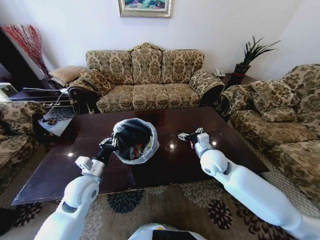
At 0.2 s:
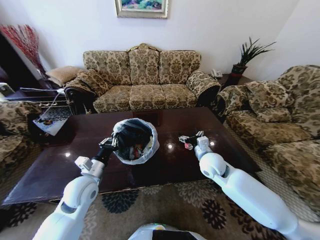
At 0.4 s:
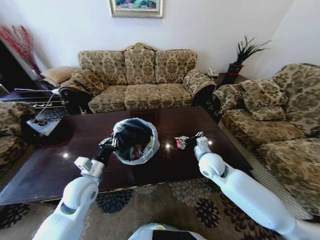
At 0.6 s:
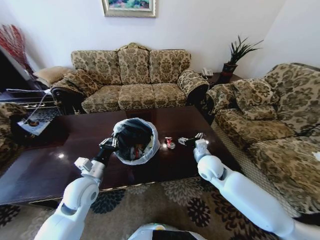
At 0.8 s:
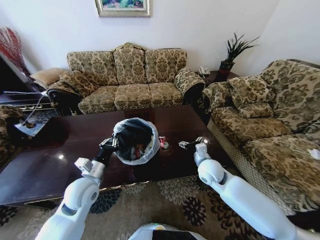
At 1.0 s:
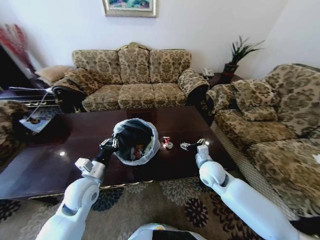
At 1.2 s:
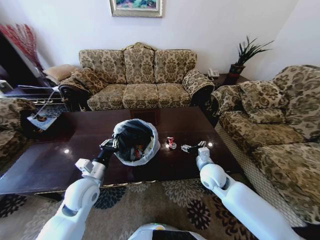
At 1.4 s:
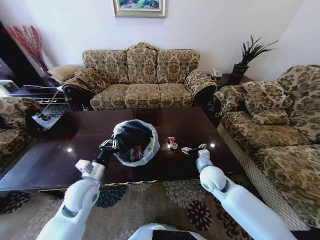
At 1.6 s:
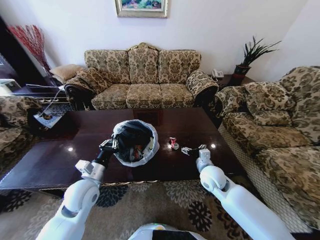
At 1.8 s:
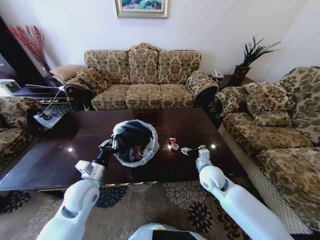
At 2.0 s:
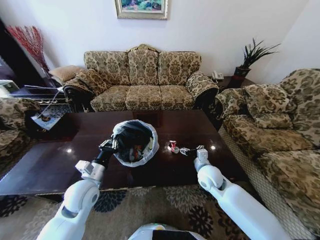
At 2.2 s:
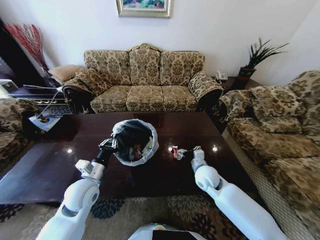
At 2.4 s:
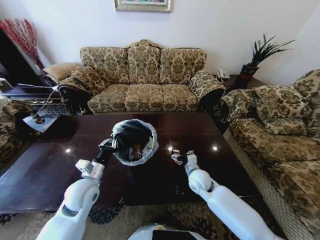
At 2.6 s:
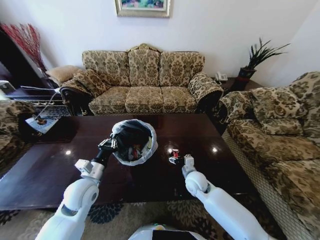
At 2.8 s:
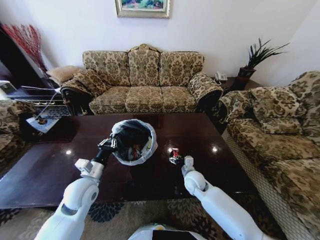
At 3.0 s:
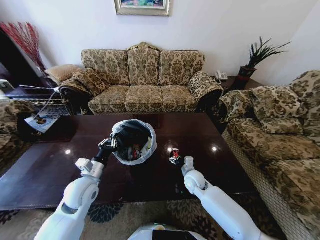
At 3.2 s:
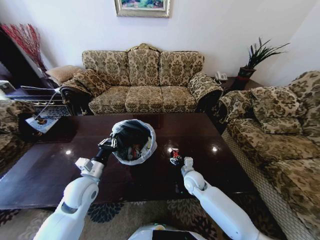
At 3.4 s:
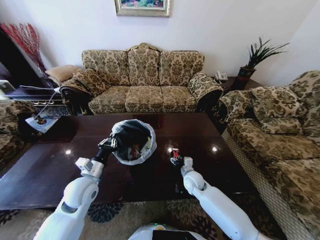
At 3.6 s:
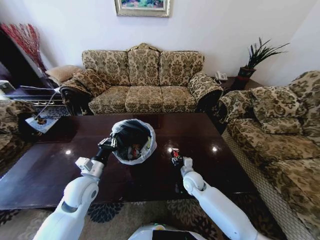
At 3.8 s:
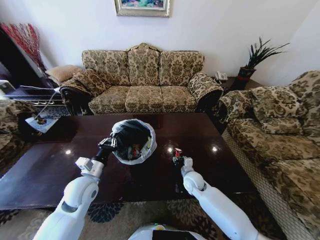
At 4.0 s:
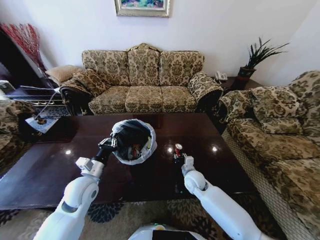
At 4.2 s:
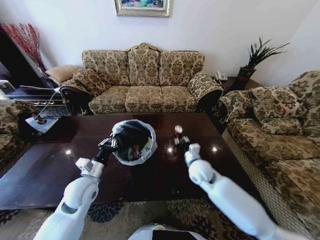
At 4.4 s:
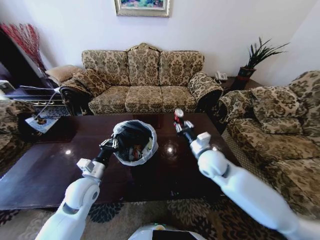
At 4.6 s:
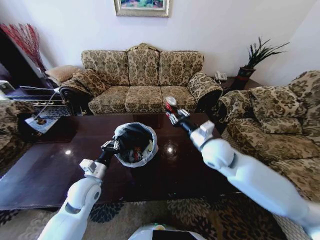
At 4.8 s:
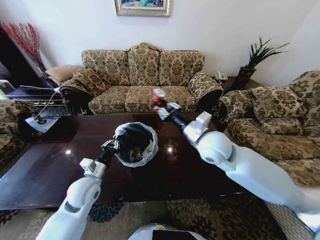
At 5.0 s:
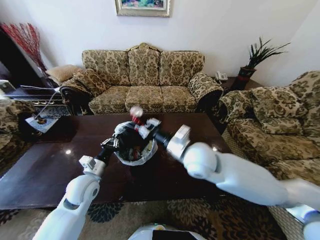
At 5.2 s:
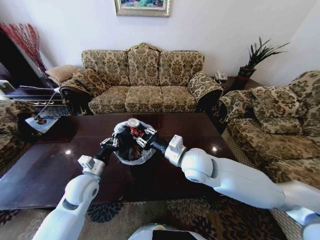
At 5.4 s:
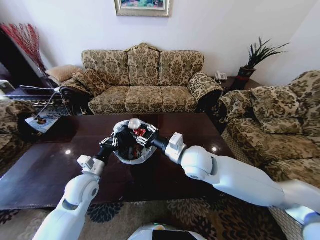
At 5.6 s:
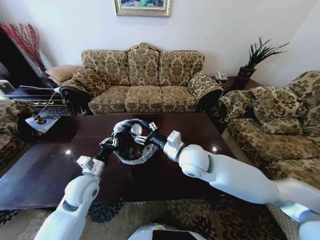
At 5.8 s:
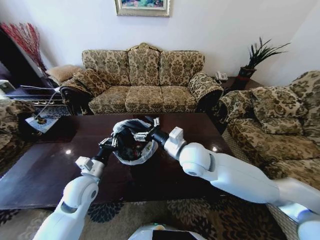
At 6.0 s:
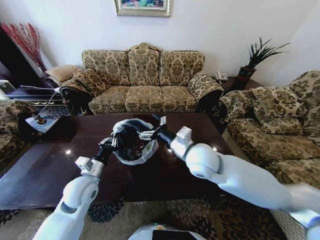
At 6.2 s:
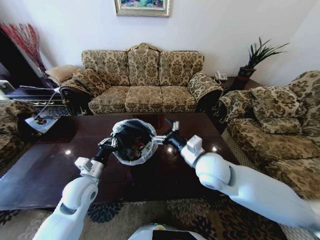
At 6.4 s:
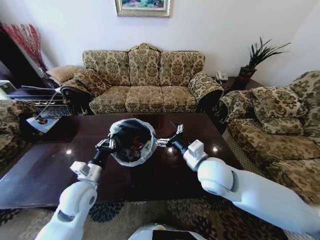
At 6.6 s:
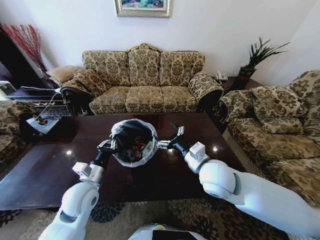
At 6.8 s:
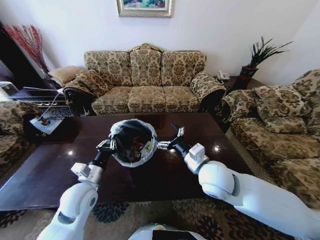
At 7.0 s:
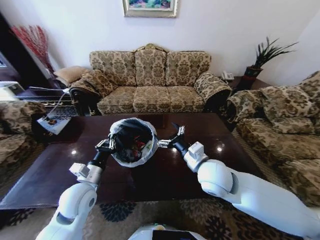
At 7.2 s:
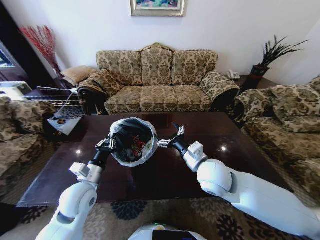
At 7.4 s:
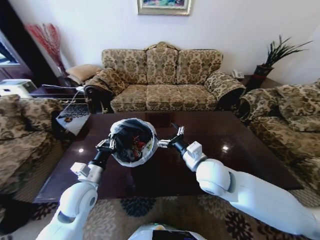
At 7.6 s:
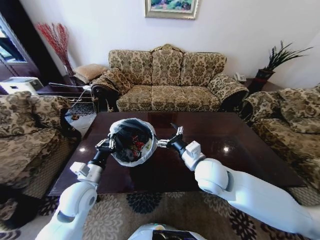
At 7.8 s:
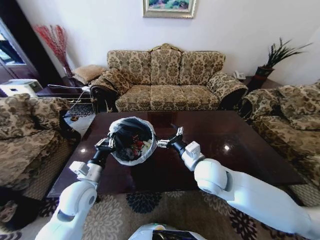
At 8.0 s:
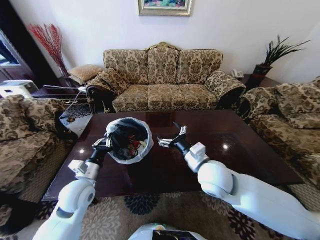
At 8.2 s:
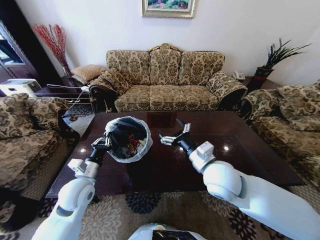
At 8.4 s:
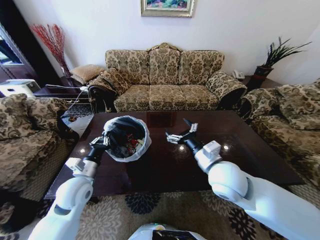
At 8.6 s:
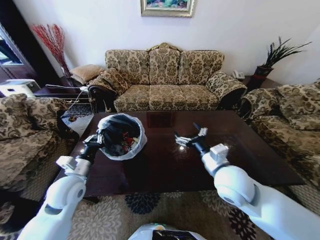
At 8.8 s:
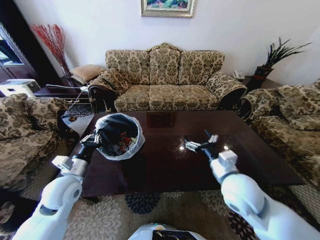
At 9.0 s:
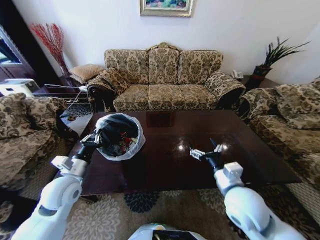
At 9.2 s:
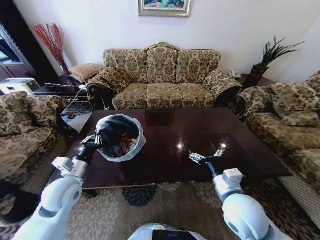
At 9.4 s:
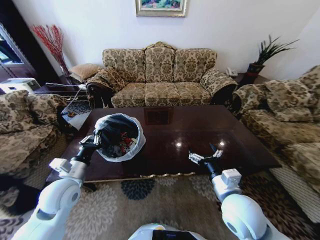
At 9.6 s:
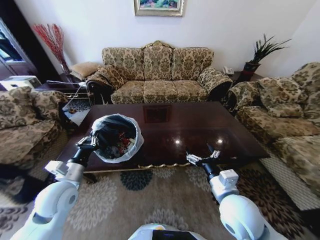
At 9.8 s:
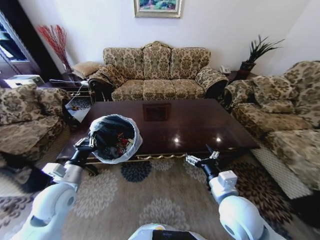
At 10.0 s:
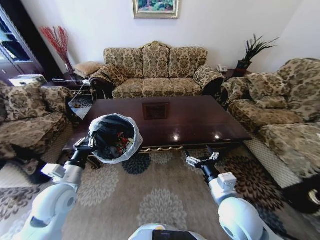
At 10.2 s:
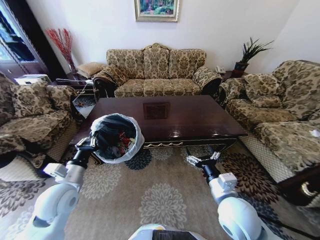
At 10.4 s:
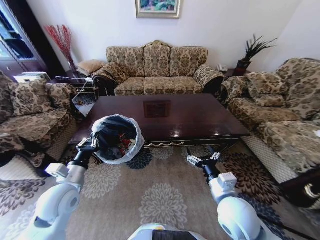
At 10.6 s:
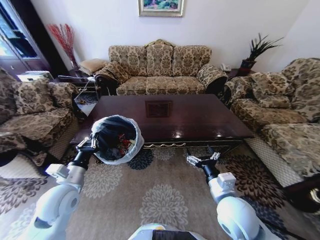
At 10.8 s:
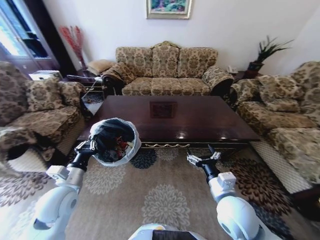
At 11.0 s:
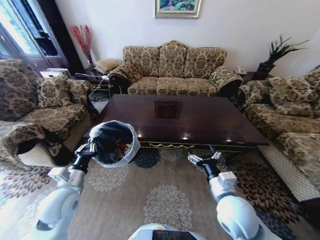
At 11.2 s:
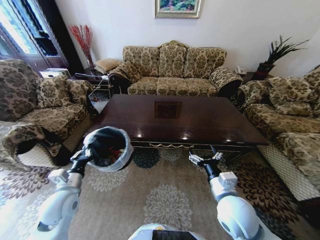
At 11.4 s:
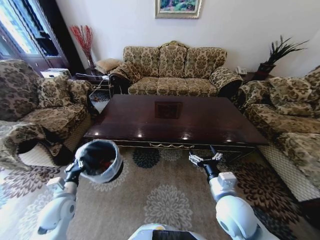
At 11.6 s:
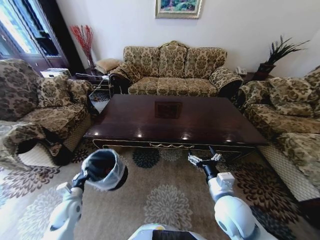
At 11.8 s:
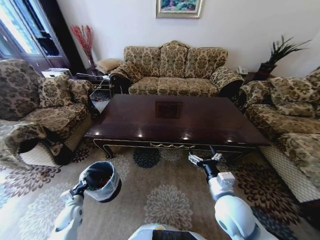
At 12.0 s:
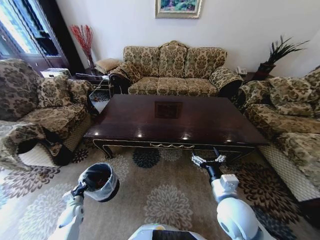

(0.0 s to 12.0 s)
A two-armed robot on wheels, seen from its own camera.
Task of the whole recording: Move to the front of the table and place the trash on the table into the trash bin.
0.0 s - 1.6 s: The right gripper shifts approximately 5 cm downward.
1.6 s - 3.0 s: The right gripper is displaced downward by about 10 cm.
3.0 s - 4.4 s: The right gripper heads upward, covering about 20 cm, and closes up.
4.4 s - 6.0 s: The right gripper is displaced to the left and upward by about 10 cm, and opens up.
6.0 s - 7.6 s: The right gripper moves approximately 5 cm.
7.6 s - 9.0 s: The left gripper is displaced to the left by approximately 5 cm. Meanwhile the right gripper goes roughly 10 cm to the right and backward.
10.4 s - 12.0 s: The left gripper heads downward and to the left, covering approximately 35 cm.

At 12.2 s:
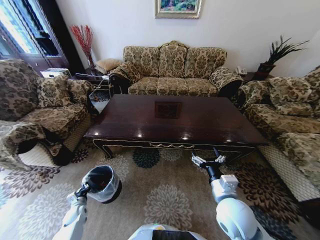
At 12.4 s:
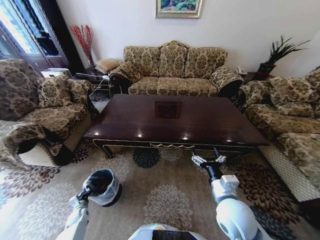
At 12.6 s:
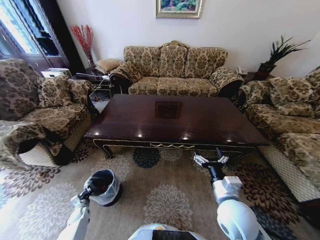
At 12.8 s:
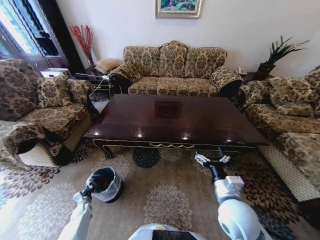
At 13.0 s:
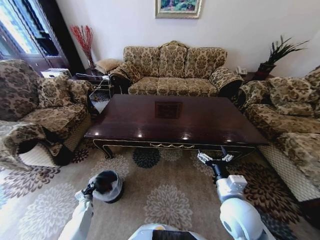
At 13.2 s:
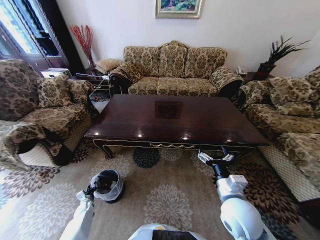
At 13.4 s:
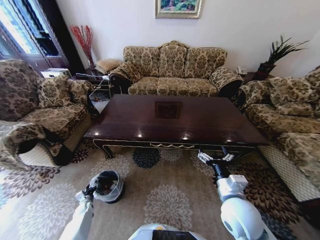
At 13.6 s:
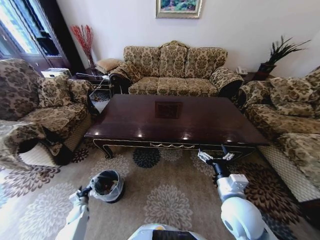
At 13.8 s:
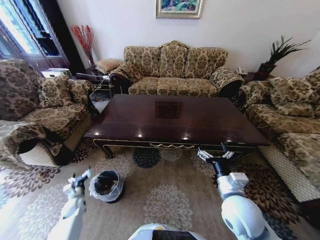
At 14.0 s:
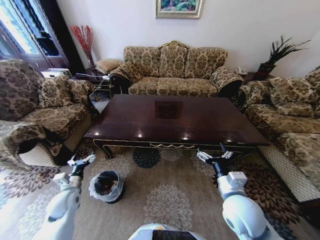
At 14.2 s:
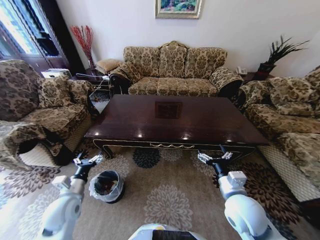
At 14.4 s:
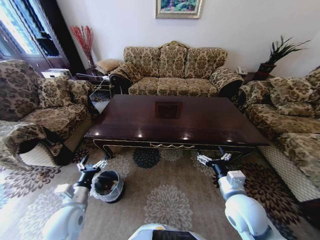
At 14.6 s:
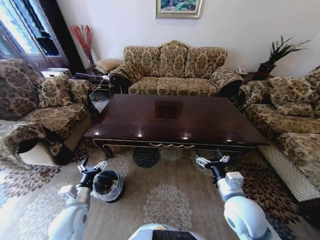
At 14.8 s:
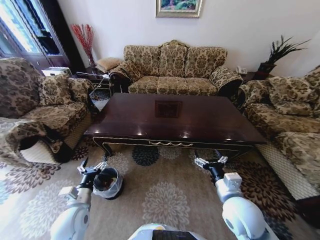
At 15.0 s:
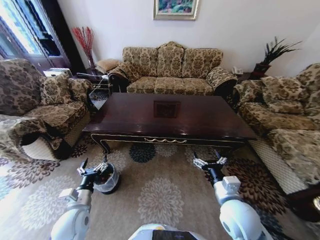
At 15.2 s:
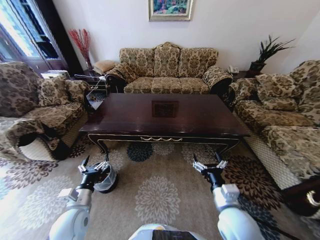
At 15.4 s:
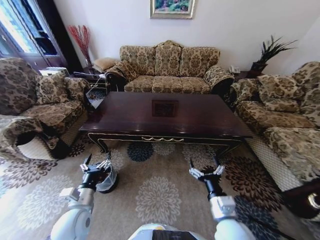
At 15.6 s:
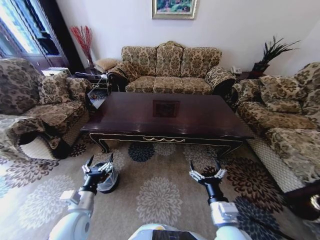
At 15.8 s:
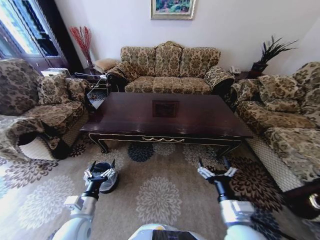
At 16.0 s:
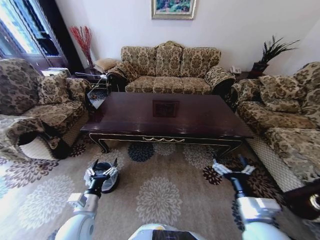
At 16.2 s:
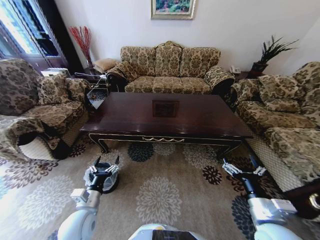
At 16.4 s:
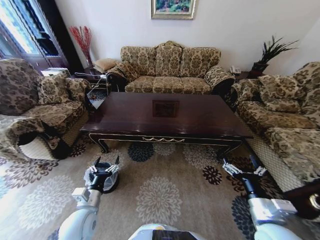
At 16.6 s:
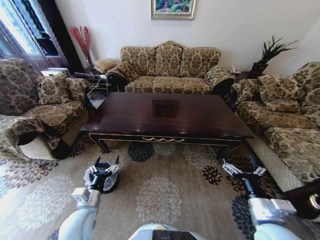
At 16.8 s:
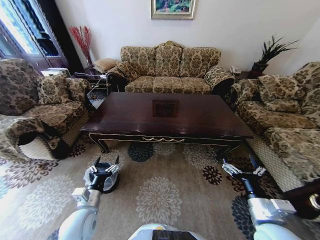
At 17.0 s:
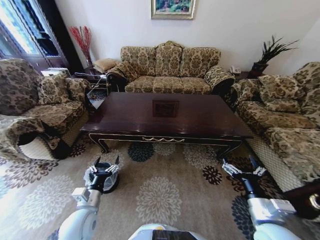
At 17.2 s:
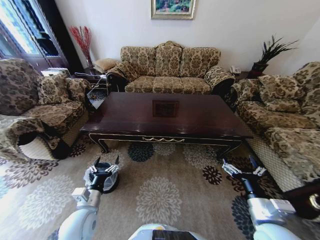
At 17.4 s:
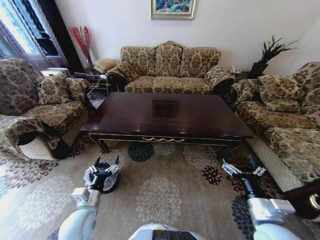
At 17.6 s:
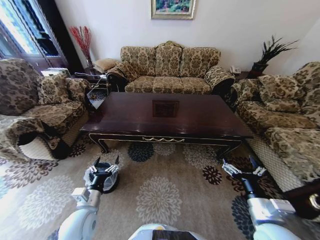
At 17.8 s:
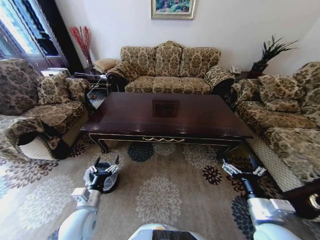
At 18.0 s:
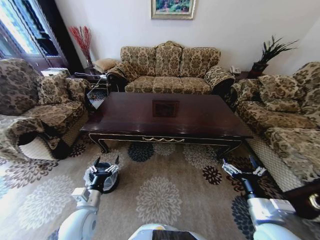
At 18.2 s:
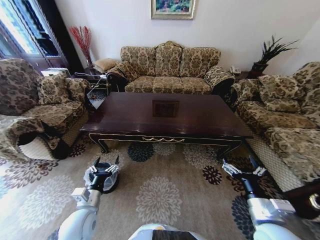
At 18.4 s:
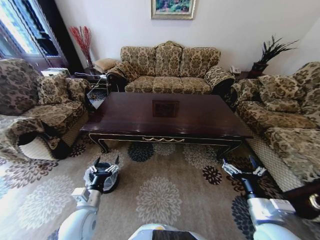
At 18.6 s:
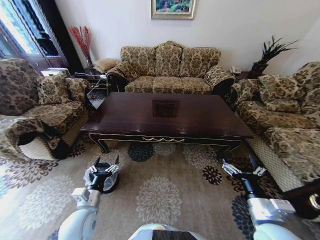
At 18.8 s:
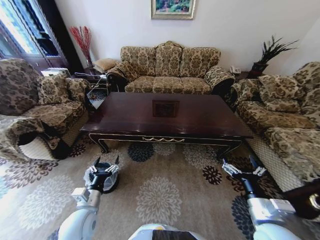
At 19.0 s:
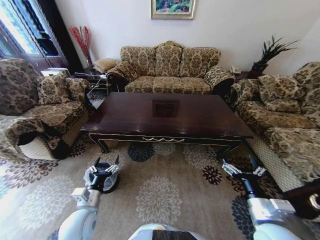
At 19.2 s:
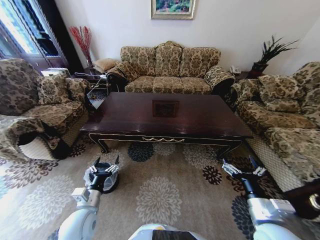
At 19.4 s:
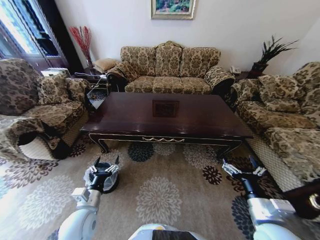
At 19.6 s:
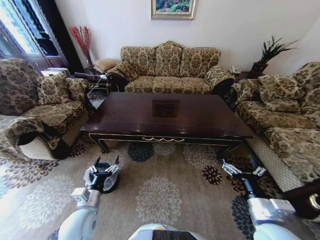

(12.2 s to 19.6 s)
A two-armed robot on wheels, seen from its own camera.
Task of the whole recording: Move to the front of the table and place the trash on the table into the trash bin.
12.2 s - 13.6 s: The left gripper opens.
13.6 s - 15.2 s: The left gripper shifts roughly 30 cm upward and to the right.
15.2 s - 16.6 s: The right gripper goes approximately 10 cm to the right.
16.6 s - 19.6 s: Both grippers stay put.
